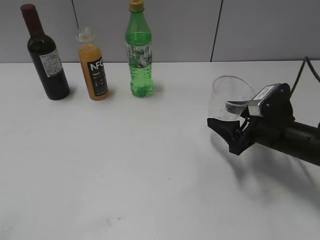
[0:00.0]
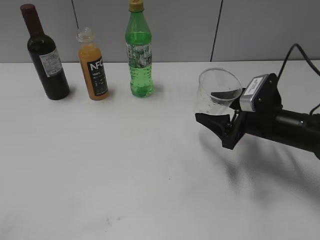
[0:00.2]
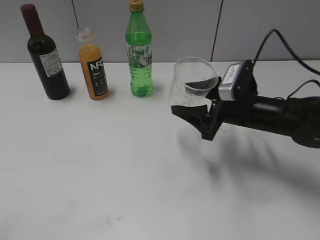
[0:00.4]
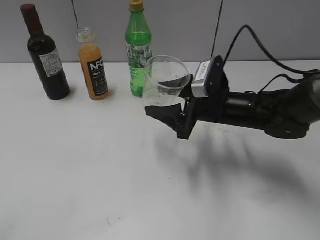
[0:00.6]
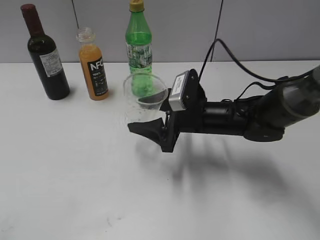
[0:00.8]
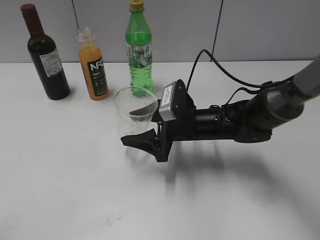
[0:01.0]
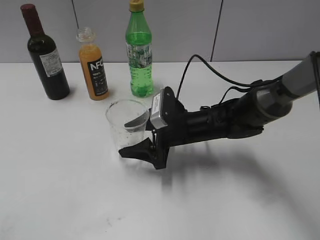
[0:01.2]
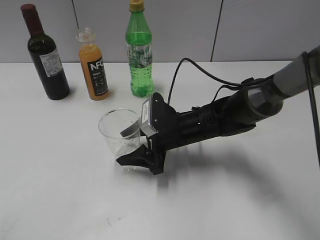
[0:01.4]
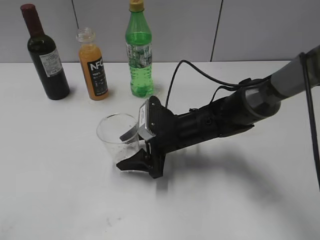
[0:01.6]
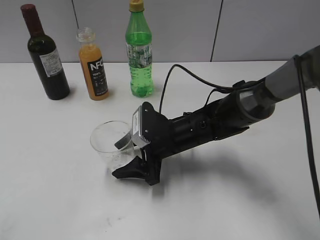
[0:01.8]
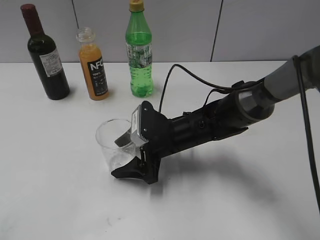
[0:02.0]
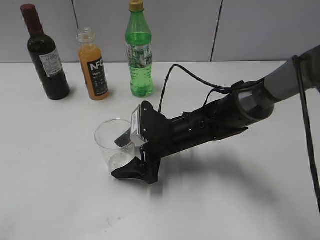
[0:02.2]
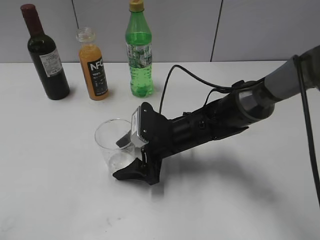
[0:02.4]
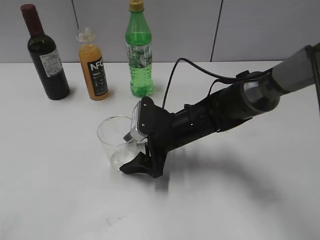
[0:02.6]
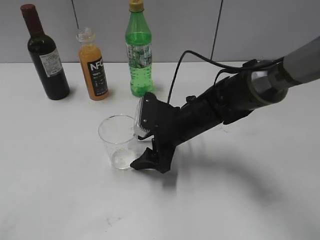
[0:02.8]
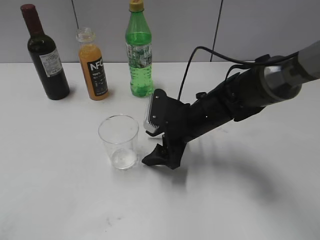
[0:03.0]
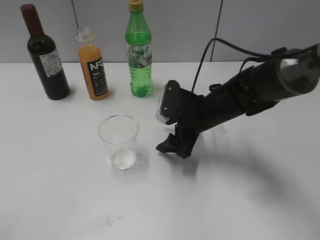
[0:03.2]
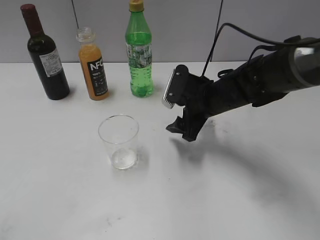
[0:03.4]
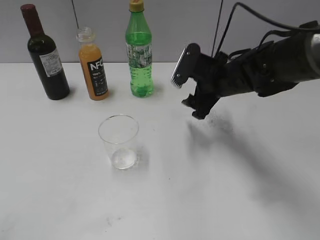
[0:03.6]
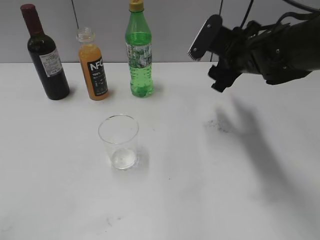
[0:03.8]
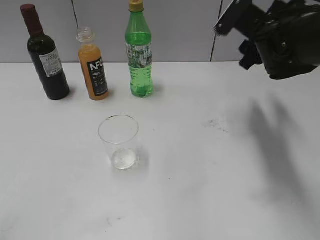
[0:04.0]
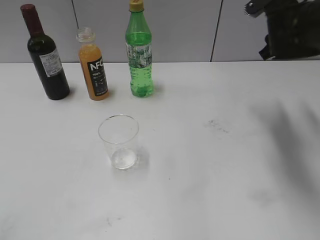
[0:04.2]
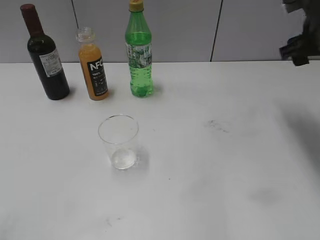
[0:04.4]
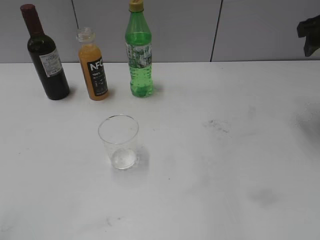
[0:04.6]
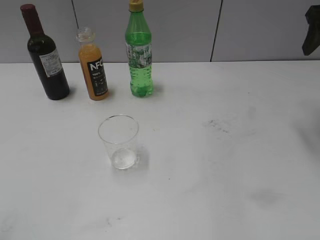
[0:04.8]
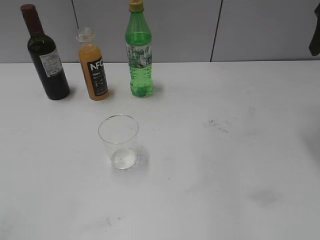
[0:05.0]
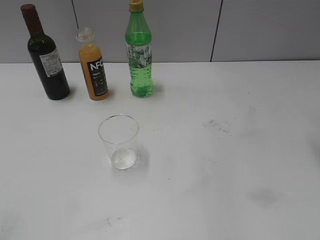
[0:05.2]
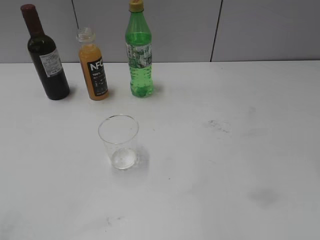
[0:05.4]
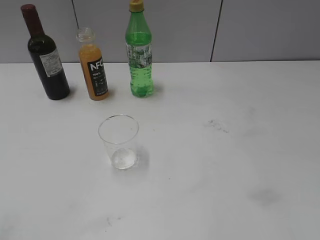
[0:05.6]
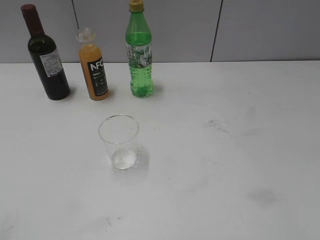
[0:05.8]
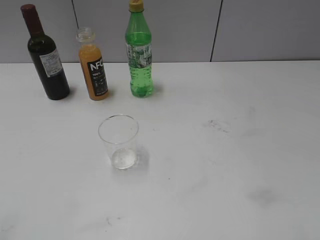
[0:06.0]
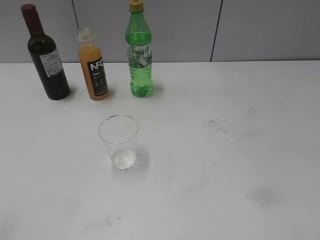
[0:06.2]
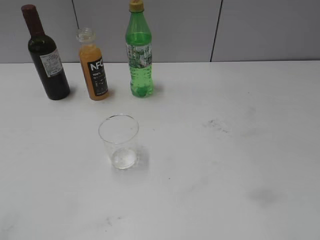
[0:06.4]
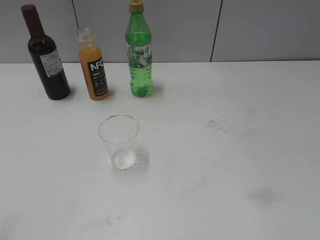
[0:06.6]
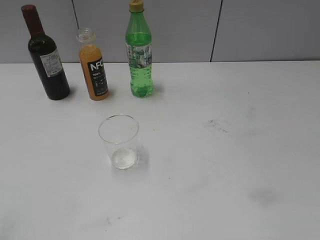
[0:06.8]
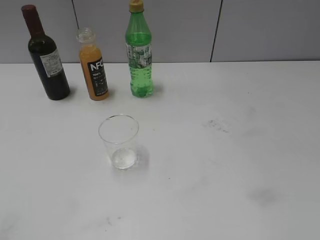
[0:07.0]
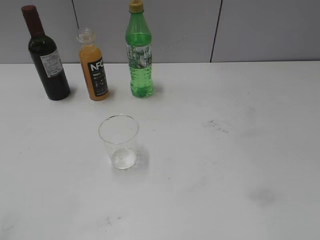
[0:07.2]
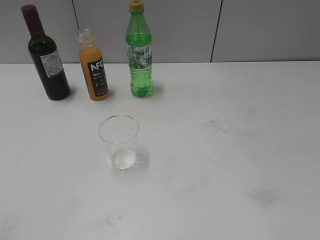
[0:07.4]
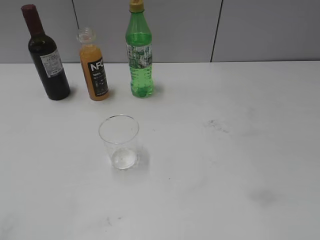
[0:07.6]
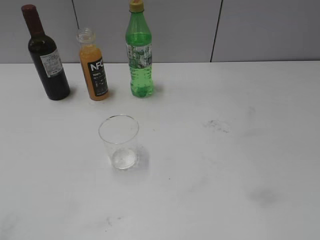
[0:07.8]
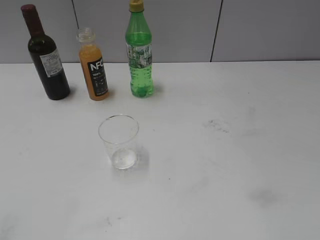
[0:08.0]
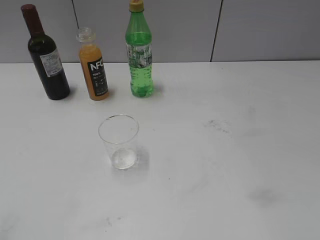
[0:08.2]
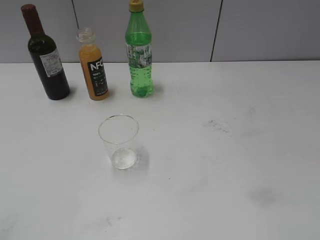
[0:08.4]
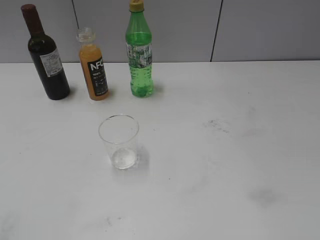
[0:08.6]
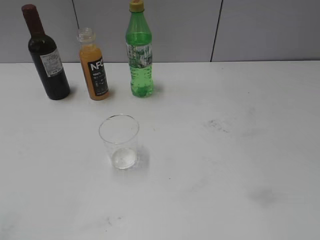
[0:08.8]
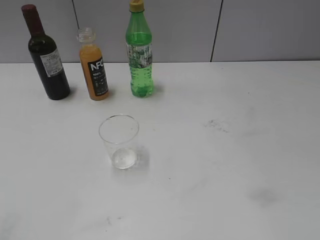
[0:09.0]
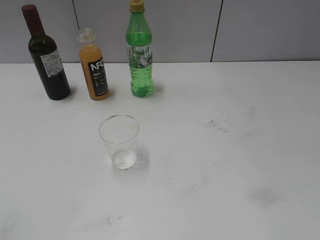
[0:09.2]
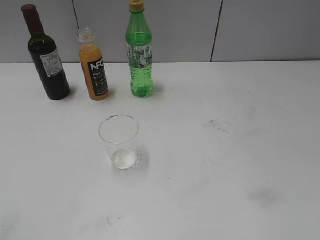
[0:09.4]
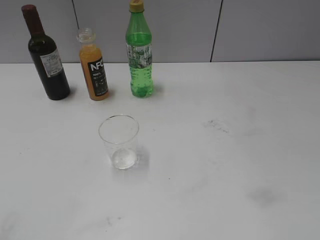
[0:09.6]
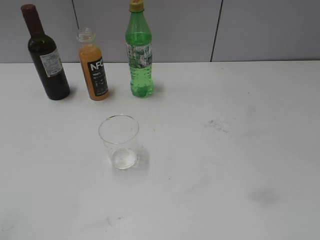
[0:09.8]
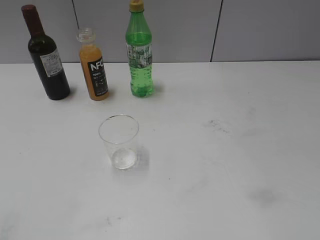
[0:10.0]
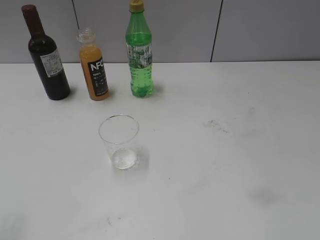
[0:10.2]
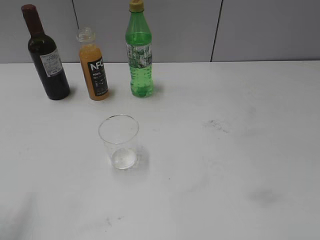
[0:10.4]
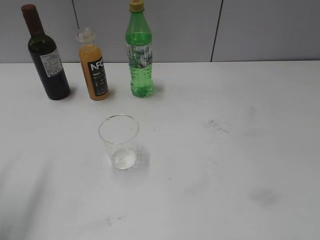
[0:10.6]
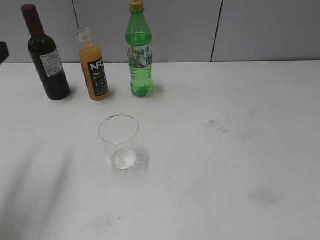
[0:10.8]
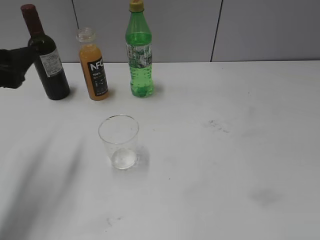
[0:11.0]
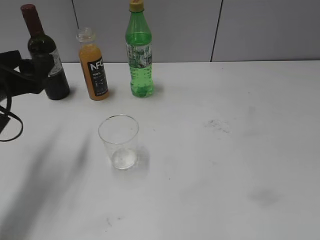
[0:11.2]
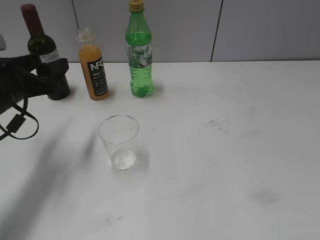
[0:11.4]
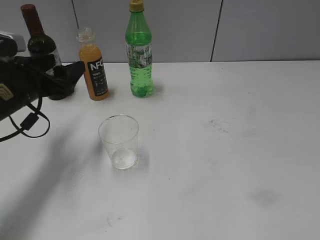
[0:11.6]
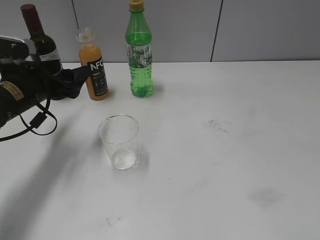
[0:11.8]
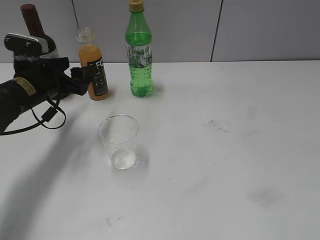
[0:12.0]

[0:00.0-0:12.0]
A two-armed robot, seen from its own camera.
Step, 0:00.0 to 0:02.8: Place the transparent cup on the table with right gripper.
0:00.0 to 0:01.6: The right gripper goes approximately 20 cm to the left.
0:01.6 to 0:03.0: The right gripper opens up.
0:03.0 to 0:04.4: The right gripper is displaced to the right and upward by roughly 25 cm, and closes up.
0:04.4 to 0:06.0: The right gripper shifts about 25 cm backward.
0:10.4 to 0:12.0: The left gripper moves forward and downward, approximately 30 cm.

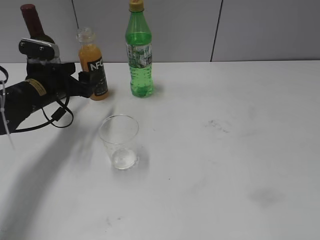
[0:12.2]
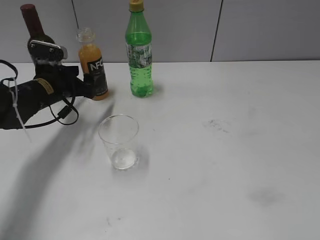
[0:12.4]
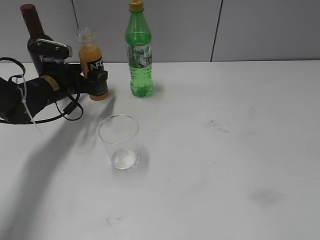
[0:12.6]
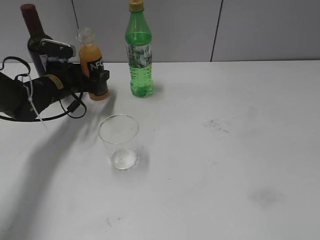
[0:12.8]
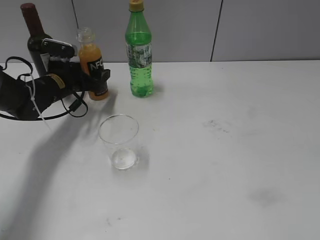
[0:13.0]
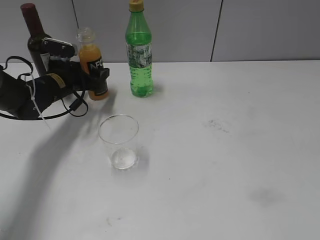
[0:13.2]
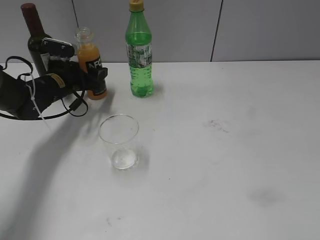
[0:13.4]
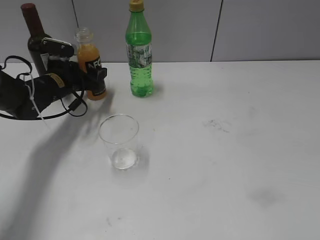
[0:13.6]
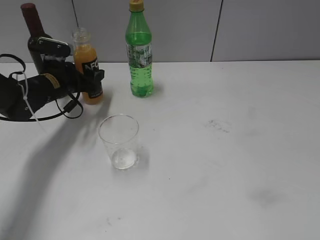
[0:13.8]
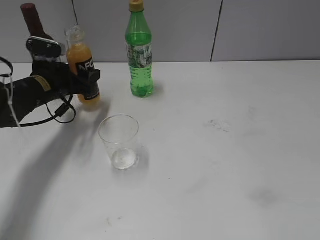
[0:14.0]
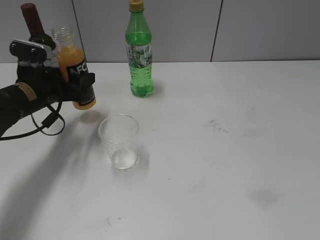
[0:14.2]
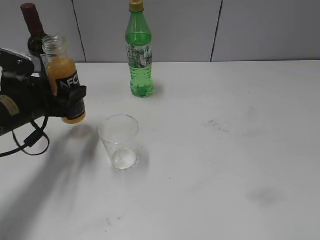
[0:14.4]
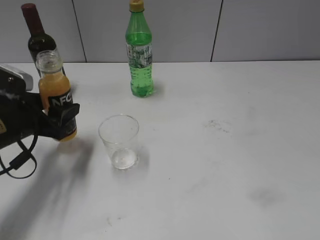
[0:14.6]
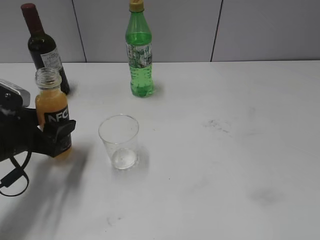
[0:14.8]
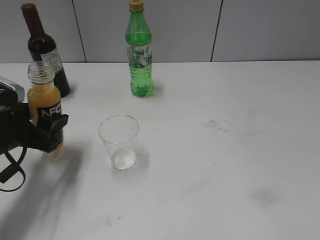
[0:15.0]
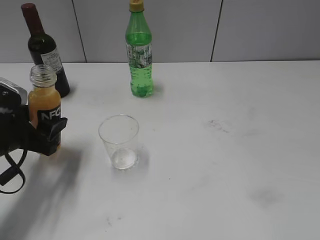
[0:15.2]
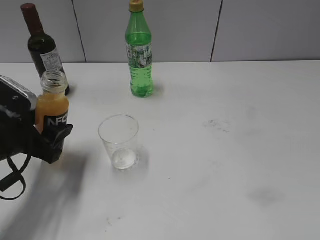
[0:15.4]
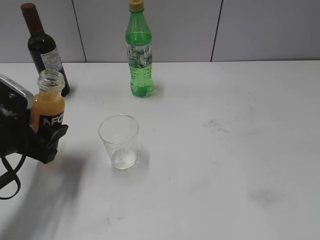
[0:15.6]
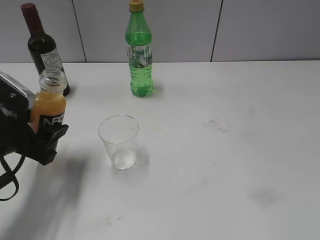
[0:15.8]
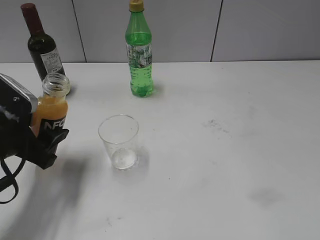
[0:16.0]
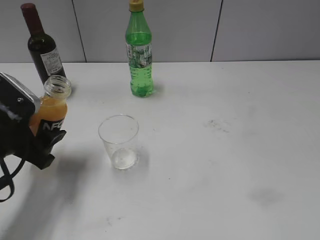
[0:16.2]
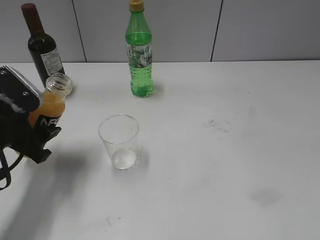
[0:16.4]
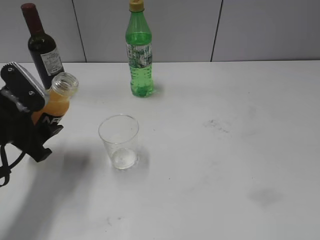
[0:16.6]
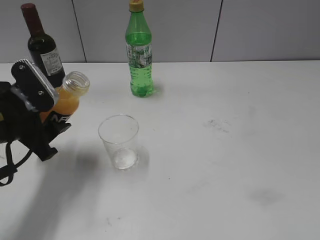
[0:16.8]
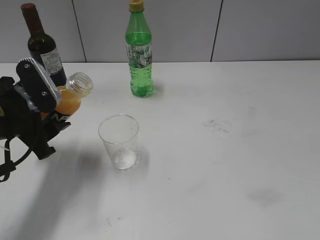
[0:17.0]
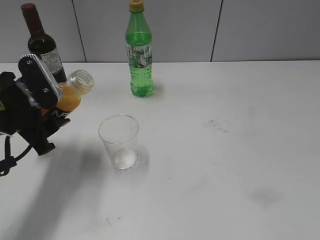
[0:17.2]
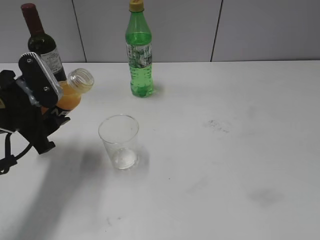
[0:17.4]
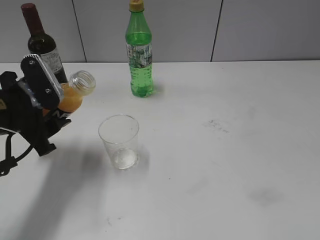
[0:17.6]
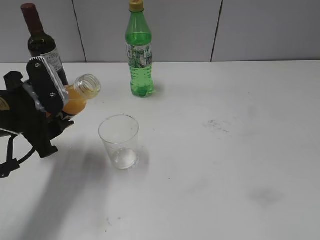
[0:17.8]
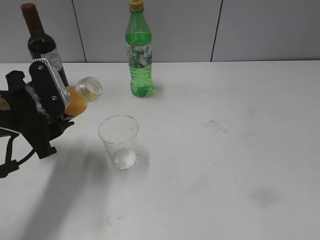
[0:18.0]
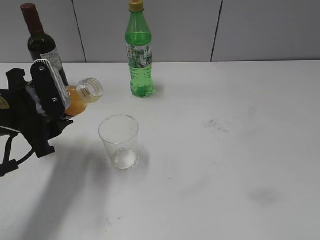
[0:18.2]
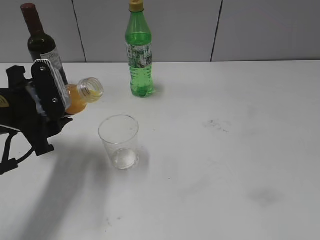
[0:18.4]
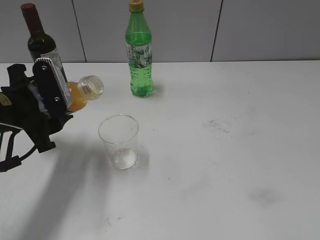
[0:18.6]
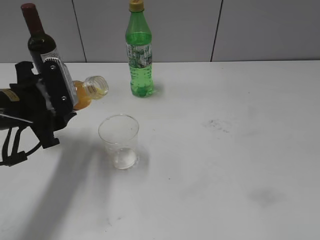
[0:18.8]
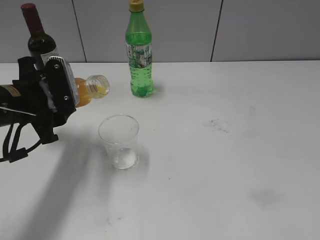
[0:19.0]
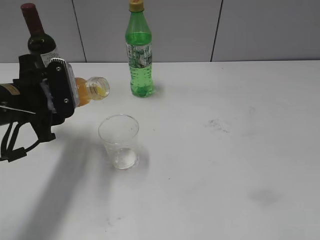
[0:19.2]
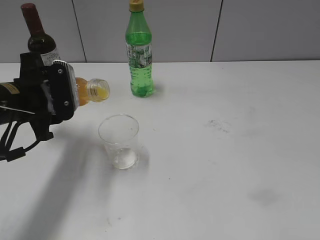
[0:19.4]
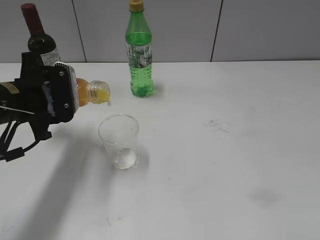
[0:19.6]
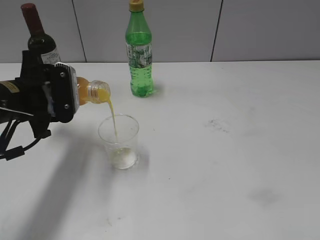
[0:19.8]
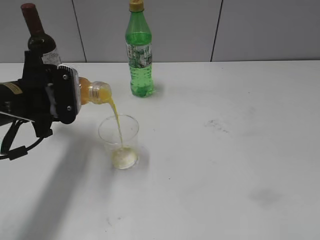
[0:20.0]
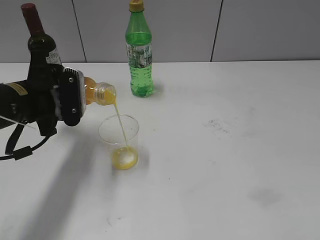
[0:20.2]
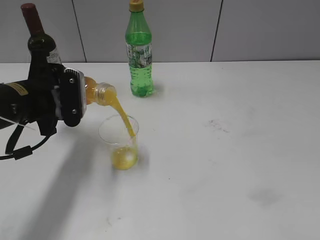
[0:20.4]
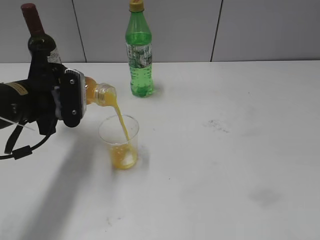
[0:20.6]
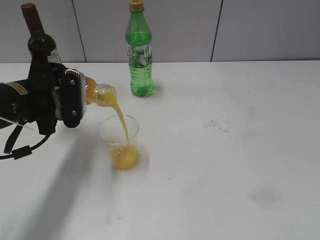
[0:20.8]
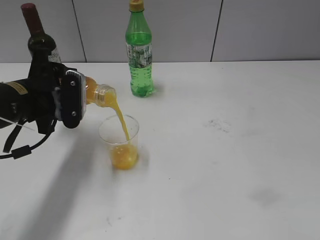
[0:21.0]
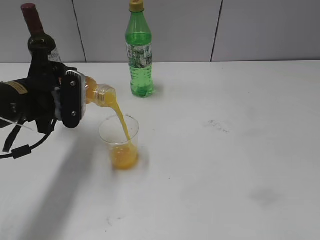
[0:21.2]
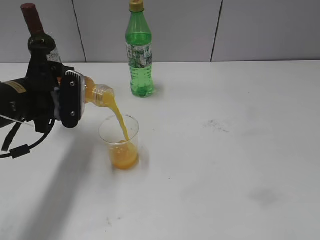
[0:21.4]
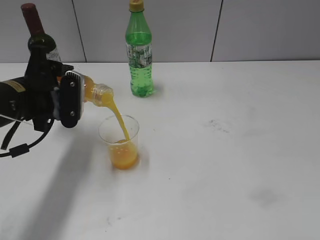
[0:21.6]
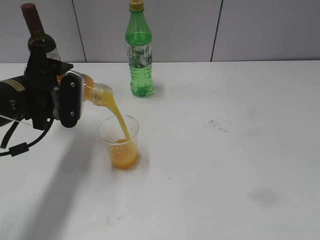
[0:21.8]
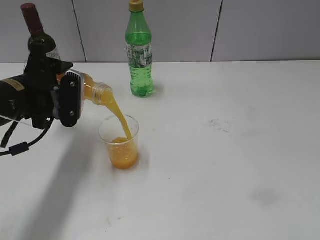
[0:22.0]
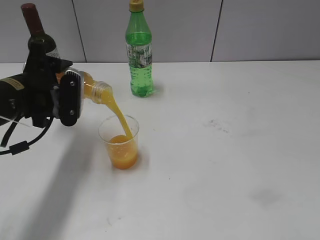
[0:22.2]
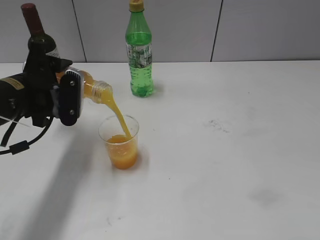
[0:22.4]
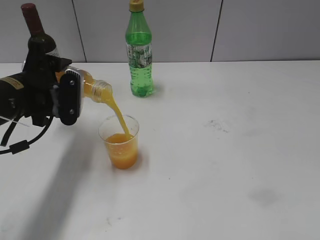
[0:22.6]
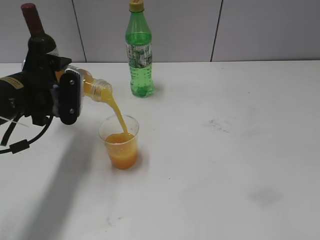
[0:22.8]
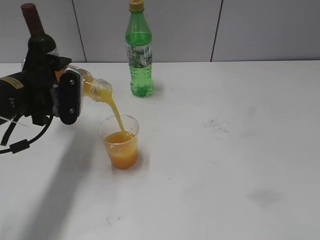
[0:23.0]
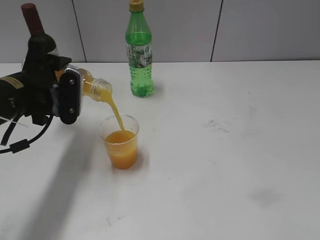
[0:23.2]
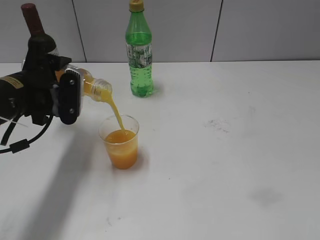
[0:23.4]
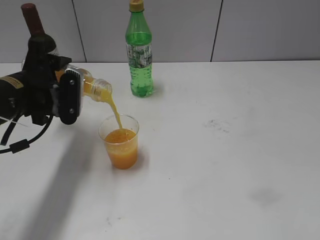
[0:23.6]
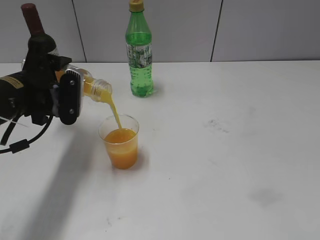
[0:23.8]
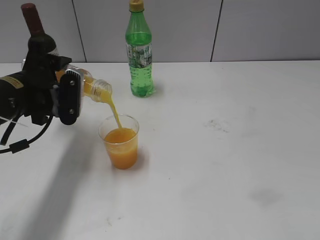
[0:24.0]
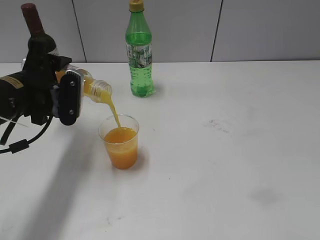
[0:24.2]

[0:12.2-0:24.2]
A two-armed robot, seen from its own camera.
0:12.2 to 0:13.8: The left gripper shifts by about 5 cm, and closes its fingers.
0:13.8 to 0:15.2: The left gripper is displaced backward by roughly 15 cm.
0:19.8 to 0:22.6: The grippers stay close to where they were, moving slightly.
0:22.6 to 0:24.2: Neither gripper changes place.
